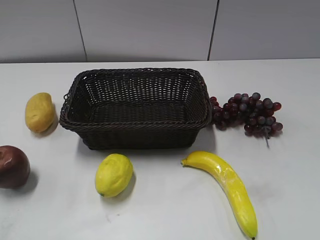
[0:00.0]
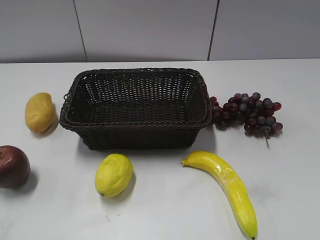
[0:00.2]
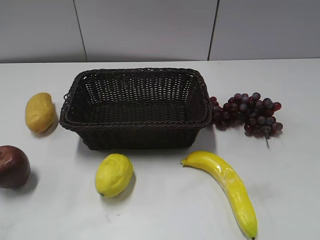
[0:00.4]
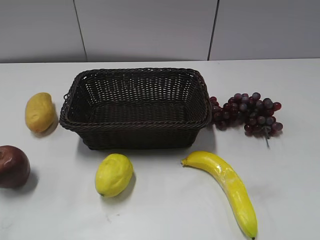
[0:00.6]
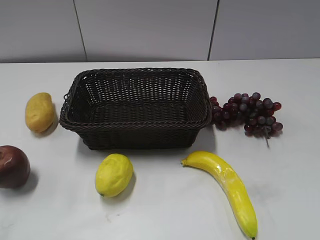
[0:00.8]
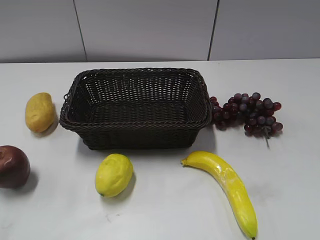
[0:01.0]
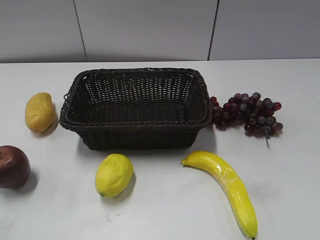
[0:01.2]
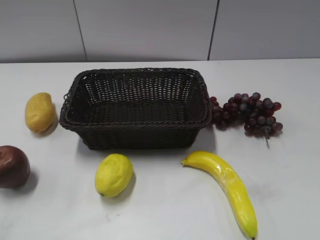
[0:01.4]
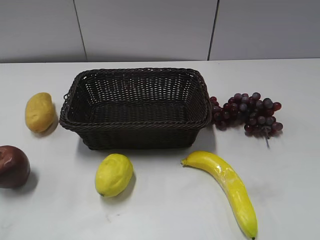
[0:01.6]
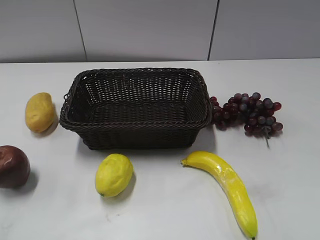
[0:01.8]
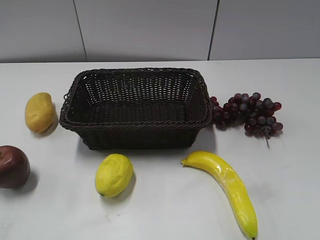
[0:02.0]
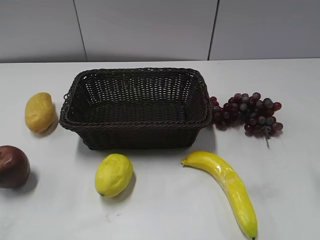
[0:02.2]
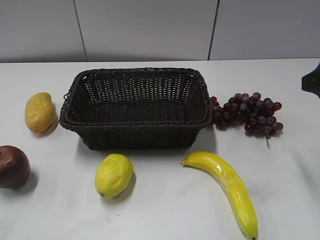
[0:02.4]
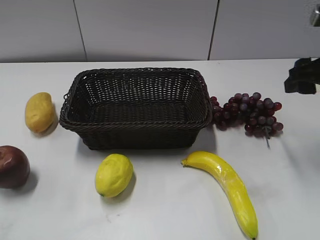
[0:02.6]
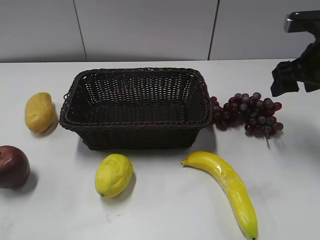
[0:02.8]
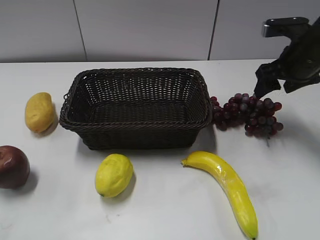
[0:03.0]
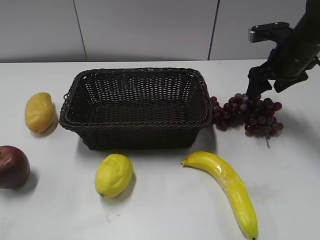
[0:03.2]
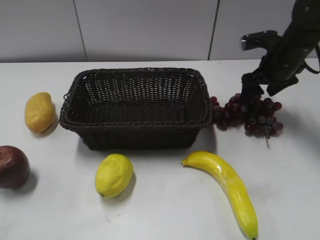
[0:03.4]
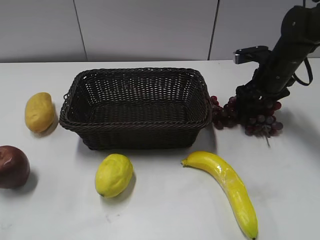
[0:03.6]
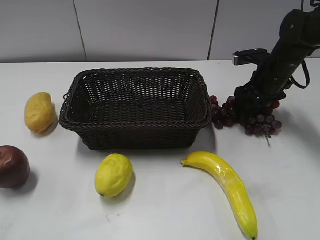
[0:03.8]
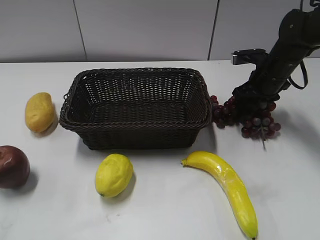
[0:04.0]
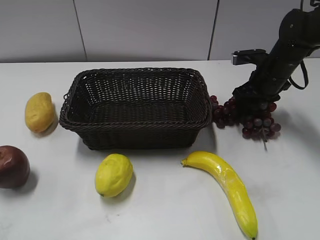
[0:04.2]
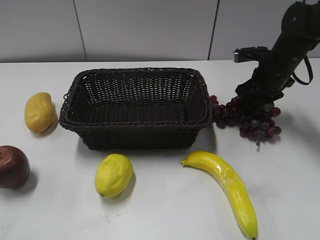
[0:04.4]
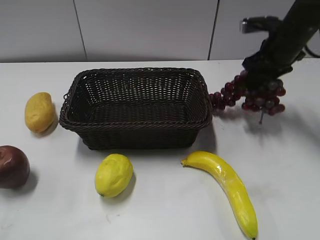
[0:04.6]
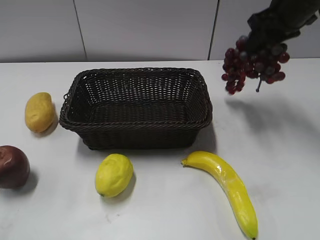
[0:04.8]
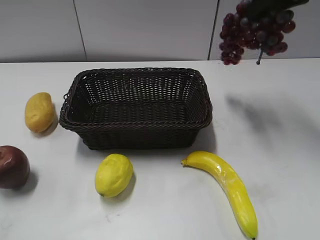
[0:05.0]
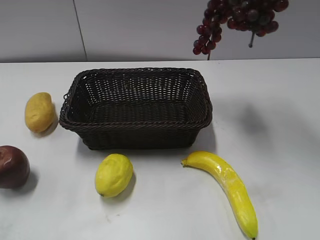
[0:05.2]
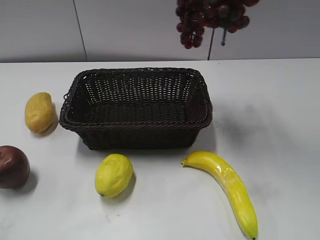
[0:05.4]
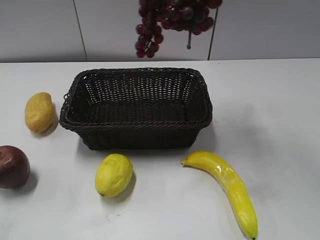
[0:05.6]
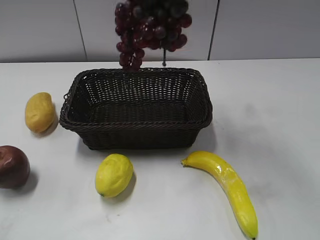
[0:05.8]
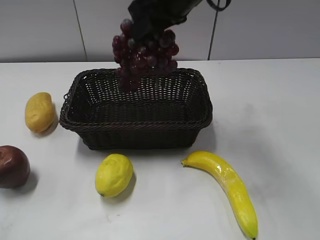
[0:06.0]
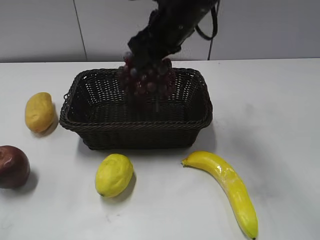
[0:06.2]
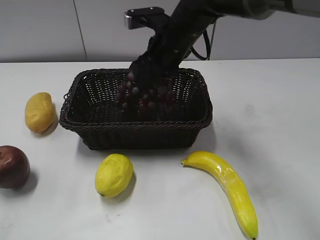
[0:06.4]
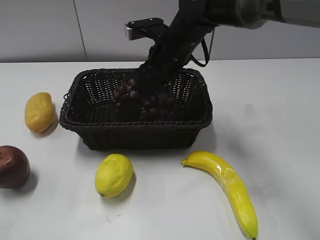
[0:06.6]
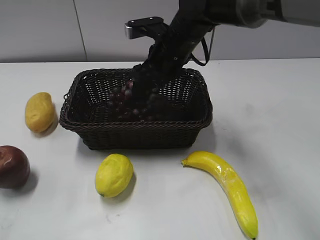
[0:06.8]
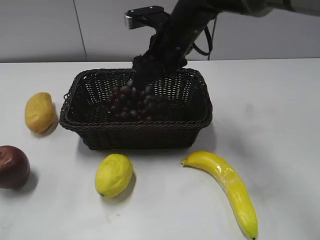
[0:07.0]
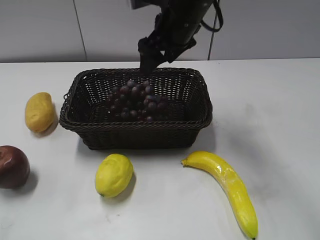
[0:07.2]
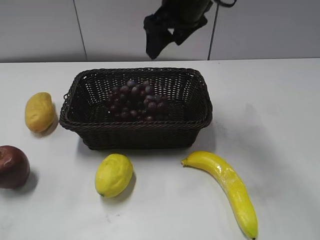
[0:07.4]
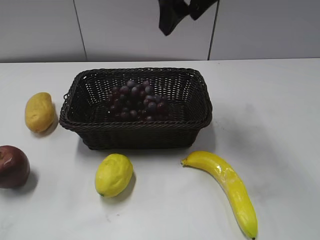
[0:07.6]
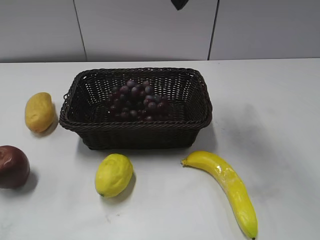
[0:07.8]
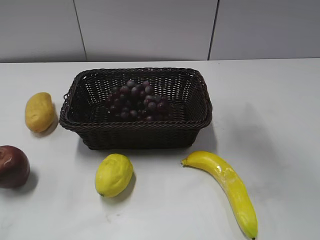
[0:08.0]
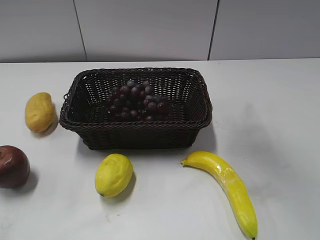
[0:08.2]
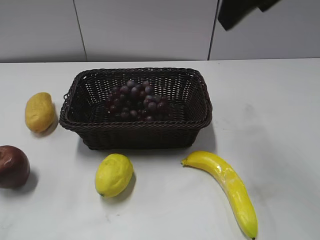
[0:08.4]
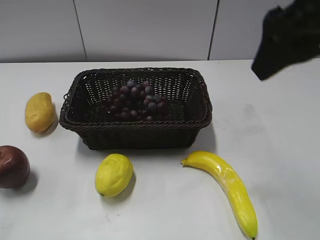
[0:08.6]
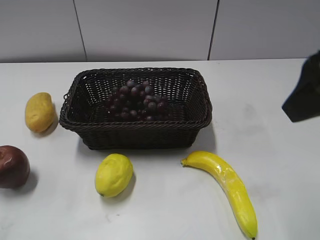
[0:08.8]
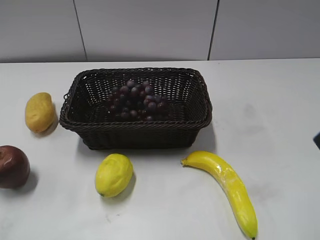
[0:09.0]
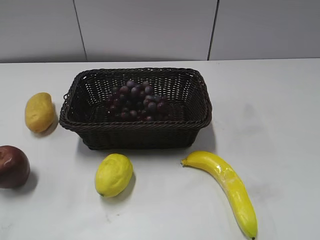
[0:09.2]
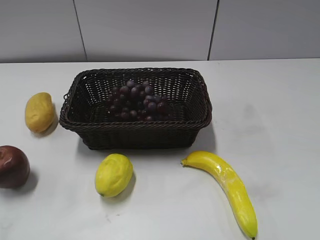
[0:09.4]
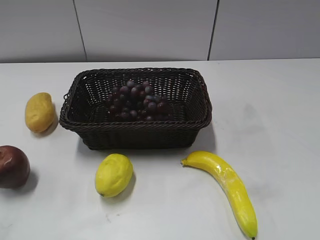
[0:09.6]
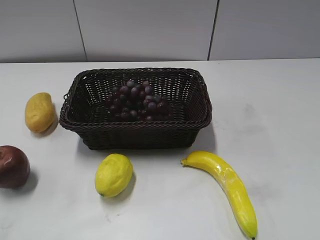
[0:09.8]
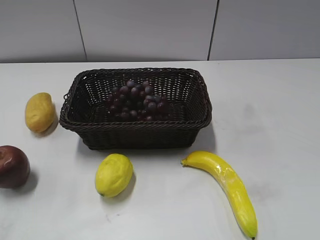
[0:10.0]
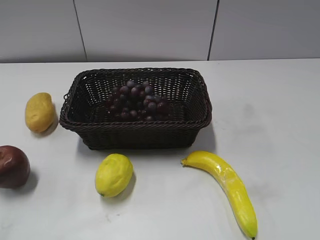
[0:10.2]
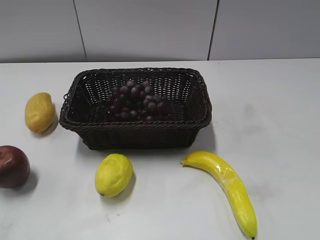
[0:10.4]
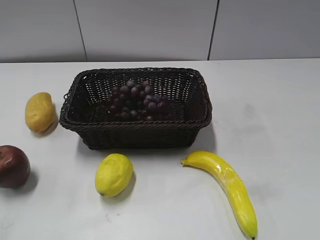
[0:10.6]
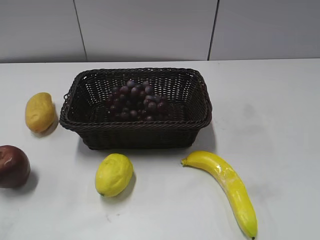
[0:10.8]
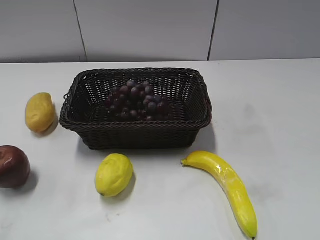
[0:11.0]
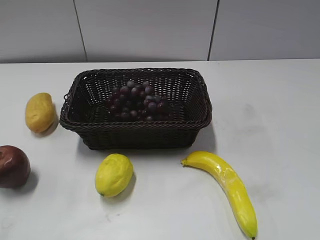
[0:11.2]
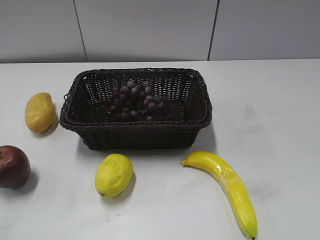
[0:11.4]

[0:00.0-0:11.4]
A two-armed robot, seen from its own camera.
Step, 0:02.2 to 0:04.4: Grasp the grape with right gripper.
Step, 0:04.8 to 0:07.0: Place the grape in the basket with right gripper.
0:01.4 to 0:02.8: The right gripper is displaced forward by approximately 35 cm.
0:02.8 to 0:04.2: The right gripper goes approximately 15 cm downward and forward, and closes up.
0:04.2 to 0:05.6: The right gripper heads upward and to the left, covering roughly 30 cm.
0:05.6 to 0:07.2: The right gripper goes roughly 15 cm downward and to the left, and opens.
0:07.2 to 0:08.6: The right gripper heads backward, to the right and upward, covering about 25 cm.
0:08.6 to 0:10.0: The right gripper goes roughly 25 cm backward, to the right and downward.
